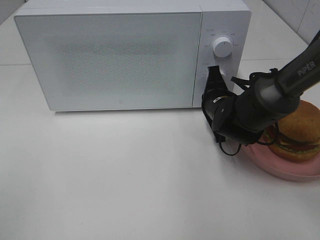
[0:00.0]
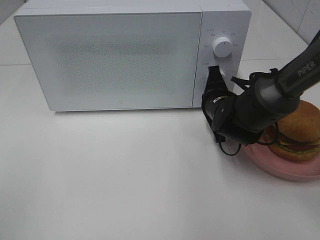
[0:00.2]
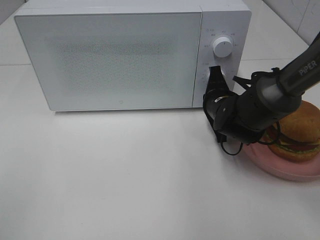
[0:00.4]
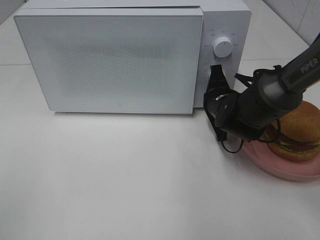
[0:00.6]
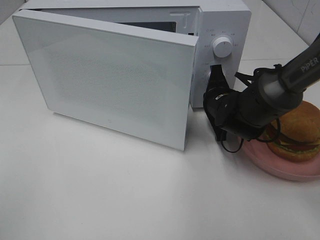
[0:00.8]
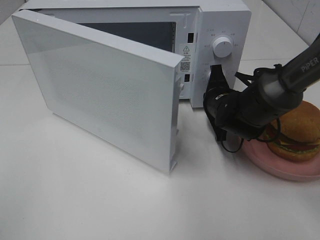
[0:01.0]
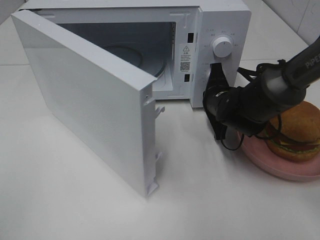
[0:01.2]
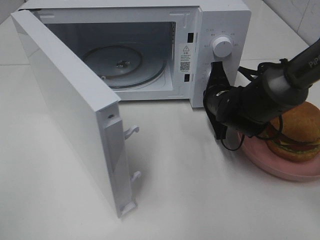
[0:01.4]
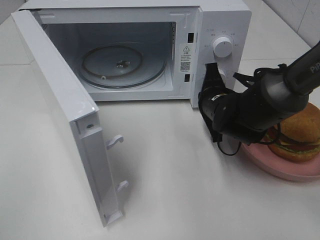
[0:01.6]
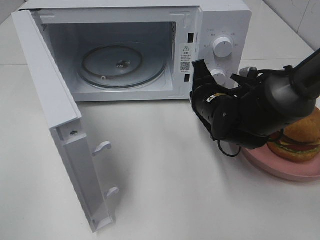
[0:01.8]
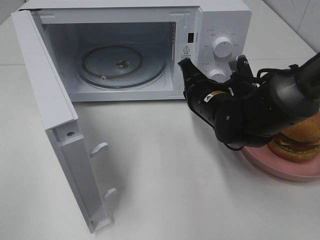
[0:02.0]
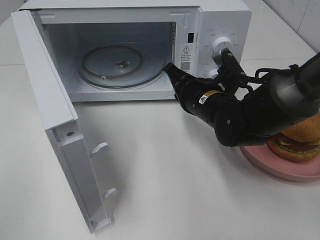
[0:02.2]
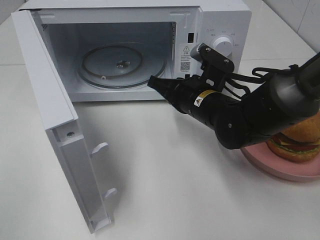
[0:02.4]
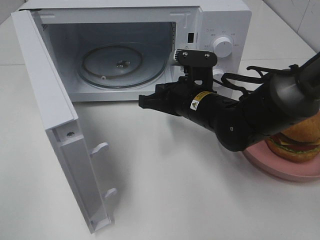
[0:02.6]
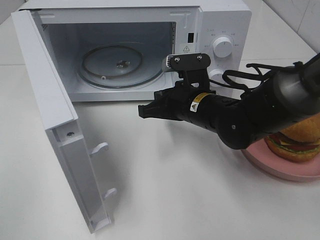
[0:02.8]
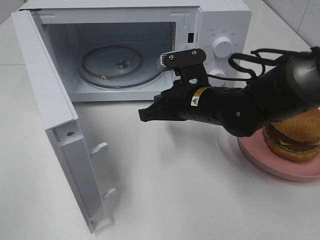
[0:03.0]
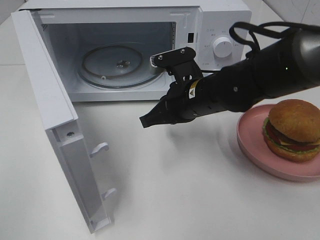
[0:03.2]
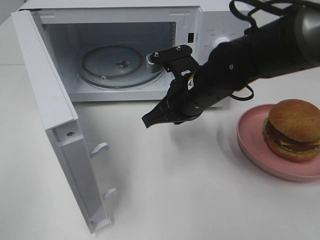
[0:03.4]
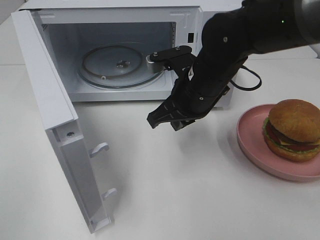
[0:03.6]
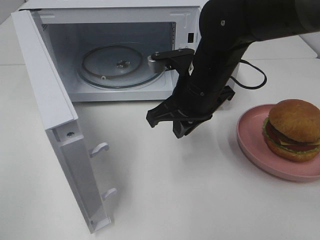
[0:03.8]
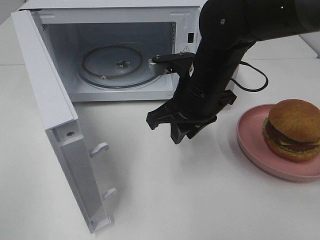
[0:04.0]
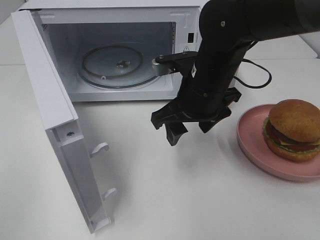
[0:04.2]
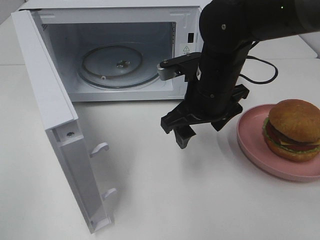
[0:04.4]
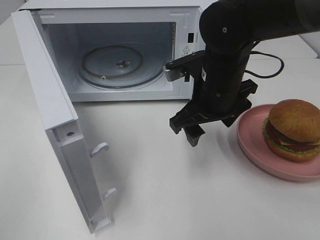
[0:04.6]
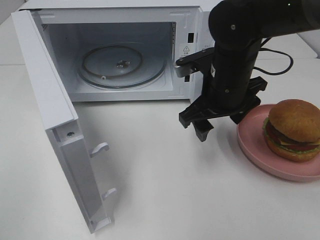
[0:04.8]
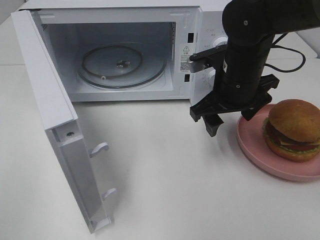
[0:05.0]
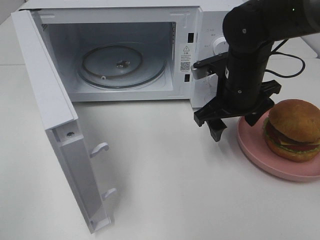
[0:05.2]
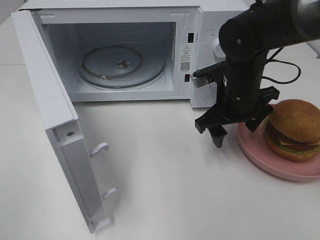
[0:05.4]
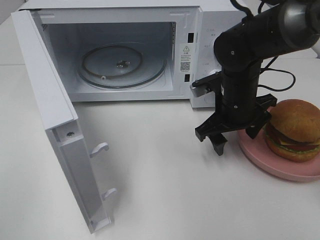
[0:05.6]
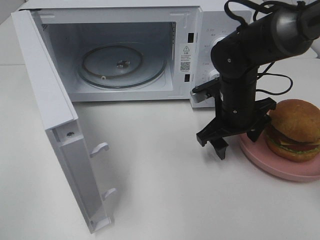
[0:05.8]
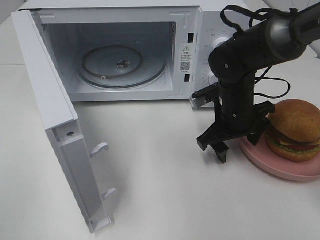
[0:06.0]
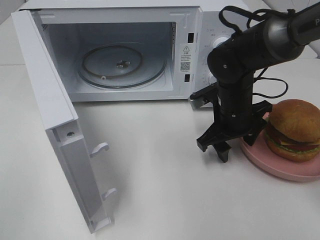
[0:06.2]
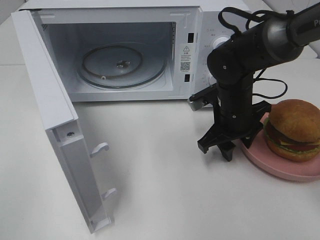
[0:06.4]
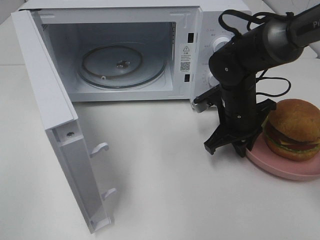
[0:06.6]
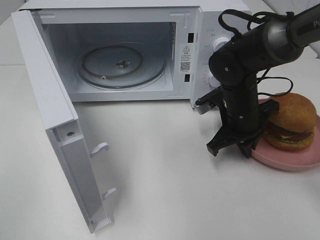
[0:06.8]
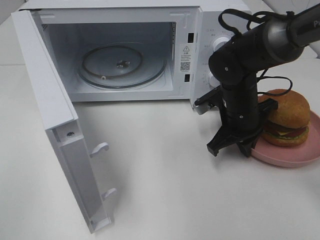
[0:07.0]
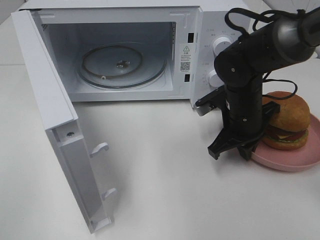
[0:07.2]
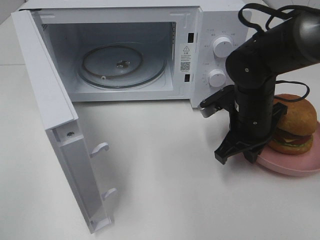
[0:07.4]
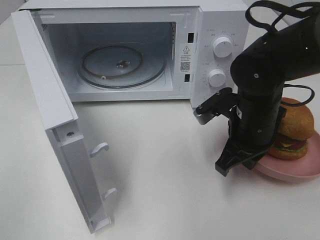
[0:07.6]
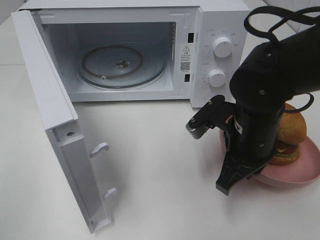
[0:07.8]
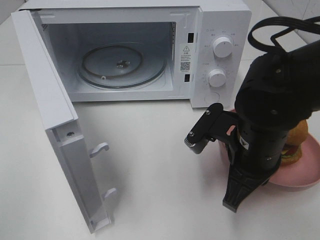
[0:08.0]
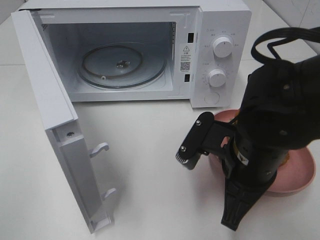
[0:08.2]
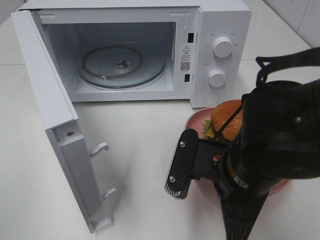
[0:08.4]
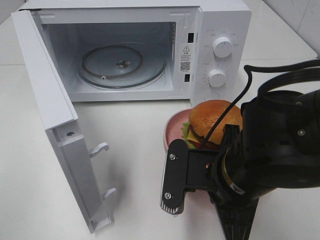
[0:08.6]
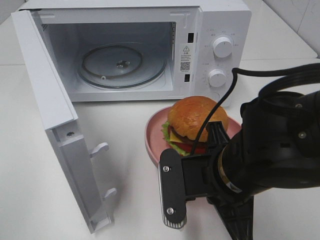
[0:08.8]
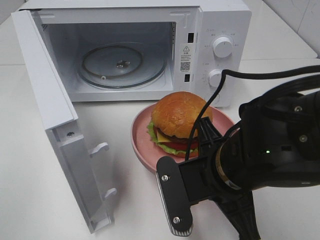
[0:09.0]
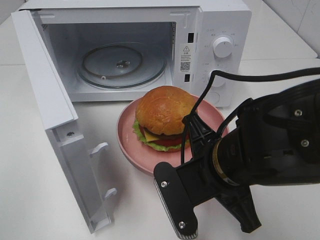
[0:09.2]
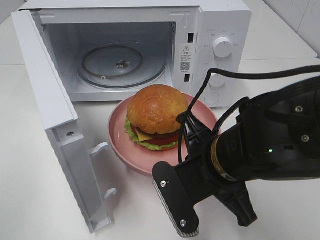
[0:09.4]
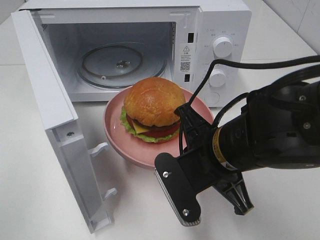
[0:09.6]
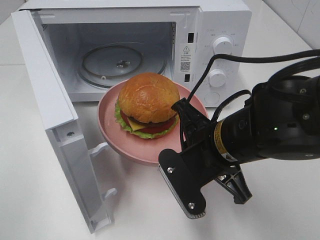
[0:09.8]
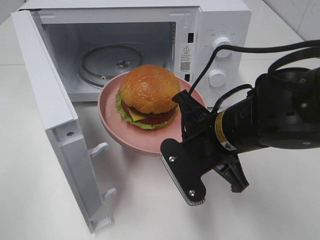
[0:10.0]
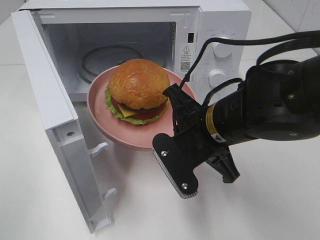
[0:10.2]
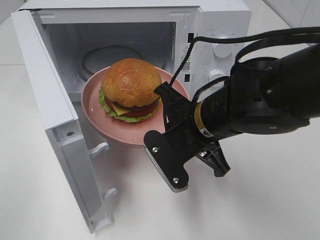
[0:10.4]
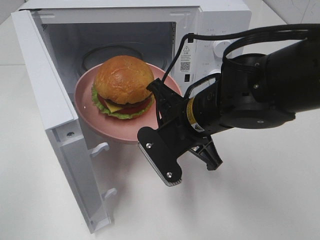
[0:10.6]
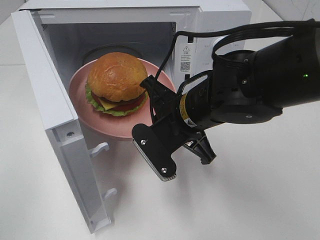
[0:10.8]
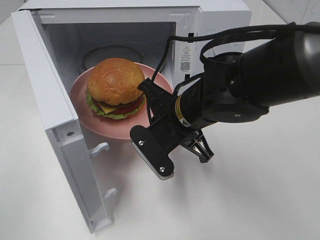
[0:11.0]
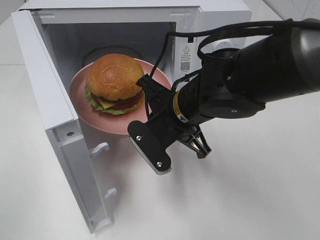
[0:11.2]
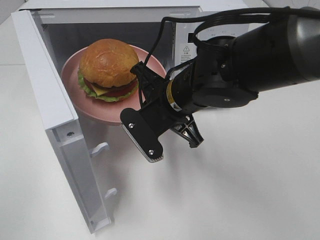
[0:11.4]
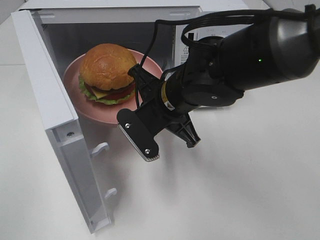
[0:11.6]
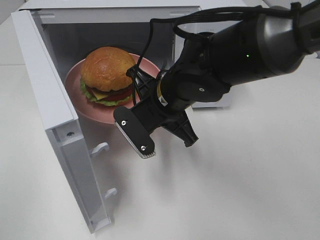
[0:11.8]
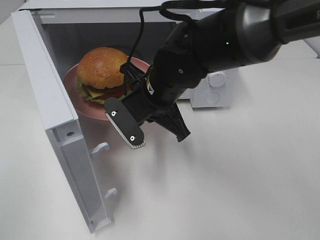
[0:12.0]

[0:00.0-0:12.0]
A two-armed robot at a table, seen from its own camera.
Task of the whole recording: Heat the burger.
Step, 0:01.8 to 0:06.8: Right hand: grab the plate with the hamburger.
0:01.6 to 0:03.0: The right gripper ends up approximately 5 cm from where it was.
0:03.0 to 0:04.4: The right gripper opens.
0:04.4 to 0:06.0: The right gripper heads downward and to the right, covering approximately 10 cm.
0:06.0 to 0:07.6: The right gripper goes about 5 cm backward, and closes.
0:07.6 to 0:09.0: The right gripper goes about 10 cm backward and to the left.
0:09.0 to 0:10.4: The right gripper moves forward, roughly 5 cm.
0:10.4 to 0:12.0: The right gripper goes roughly 10 cm forward and to the left.

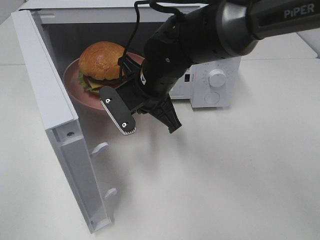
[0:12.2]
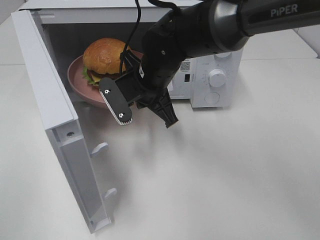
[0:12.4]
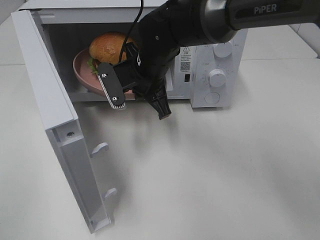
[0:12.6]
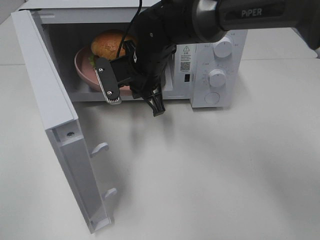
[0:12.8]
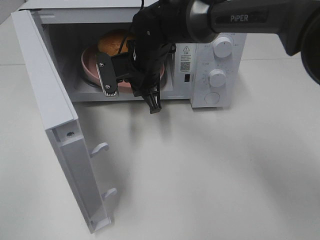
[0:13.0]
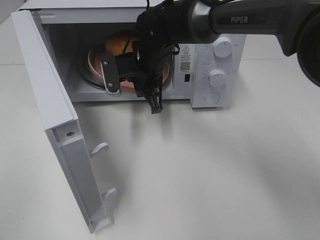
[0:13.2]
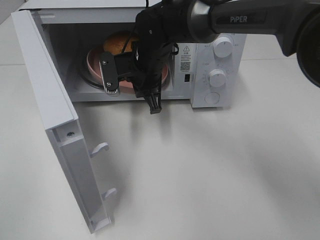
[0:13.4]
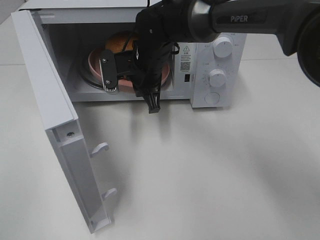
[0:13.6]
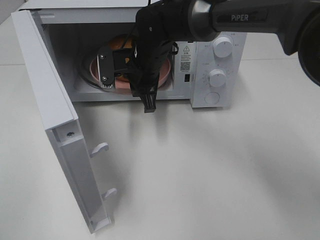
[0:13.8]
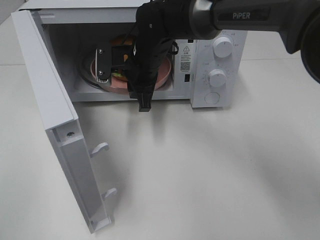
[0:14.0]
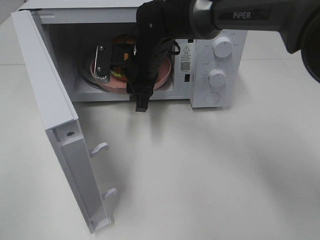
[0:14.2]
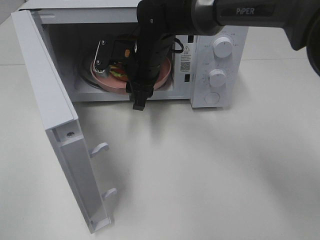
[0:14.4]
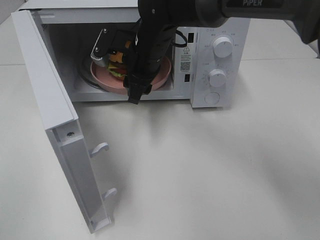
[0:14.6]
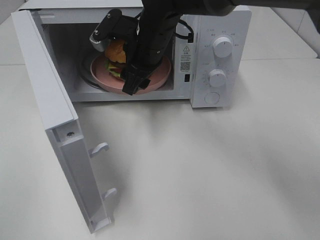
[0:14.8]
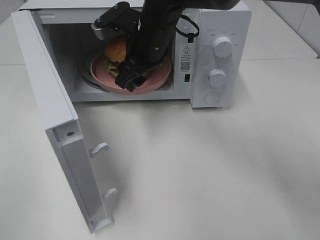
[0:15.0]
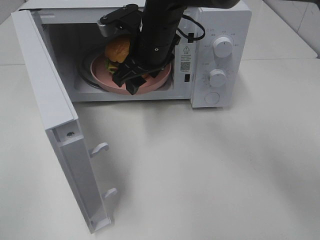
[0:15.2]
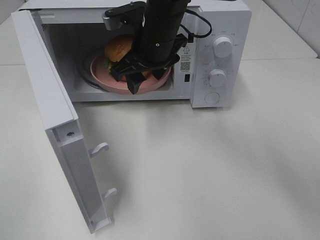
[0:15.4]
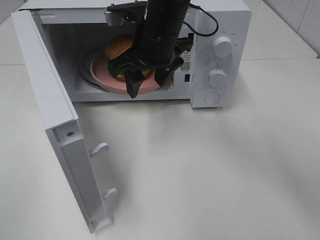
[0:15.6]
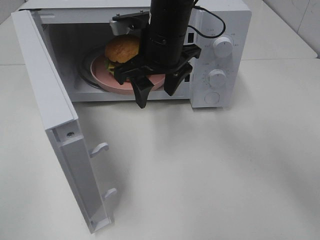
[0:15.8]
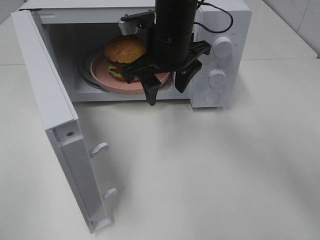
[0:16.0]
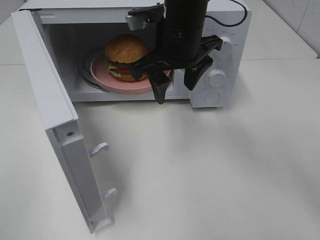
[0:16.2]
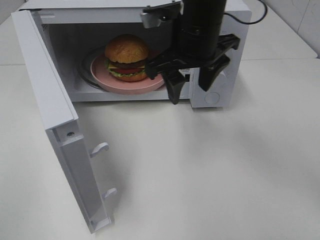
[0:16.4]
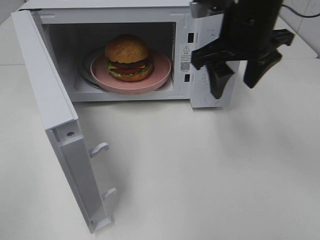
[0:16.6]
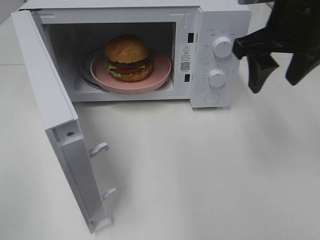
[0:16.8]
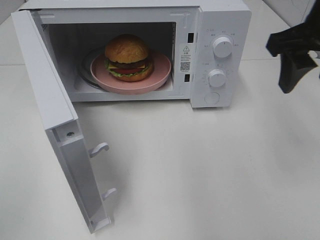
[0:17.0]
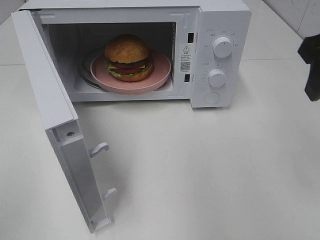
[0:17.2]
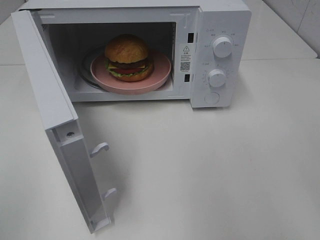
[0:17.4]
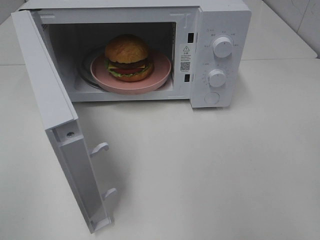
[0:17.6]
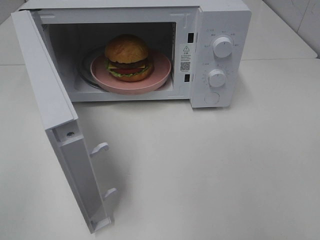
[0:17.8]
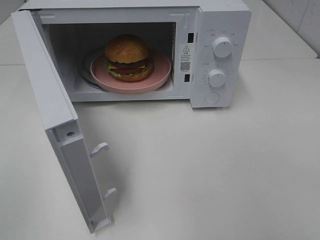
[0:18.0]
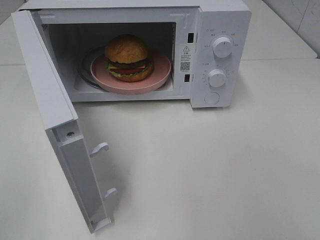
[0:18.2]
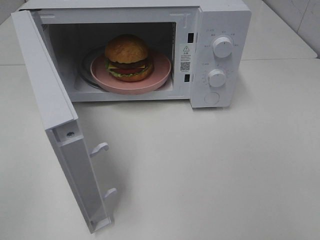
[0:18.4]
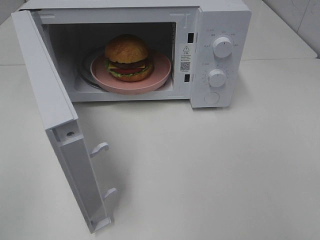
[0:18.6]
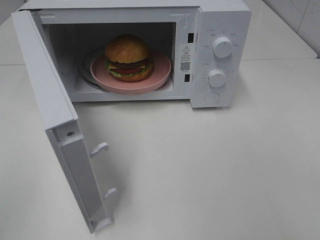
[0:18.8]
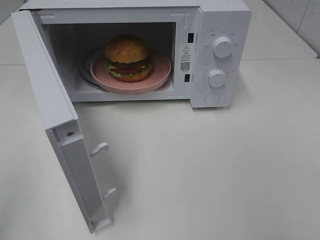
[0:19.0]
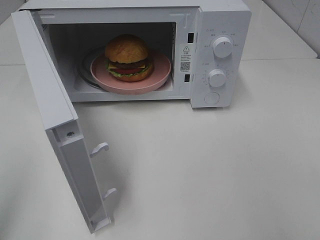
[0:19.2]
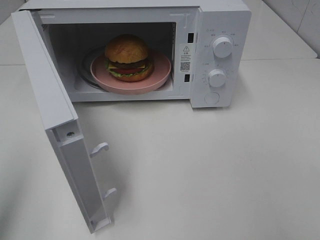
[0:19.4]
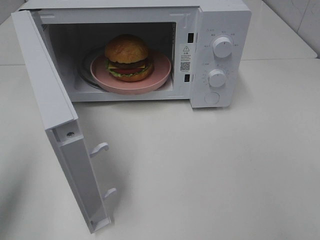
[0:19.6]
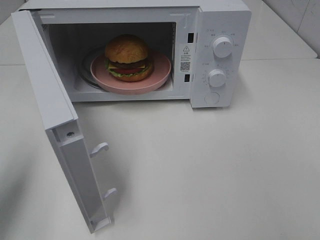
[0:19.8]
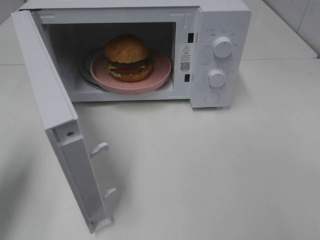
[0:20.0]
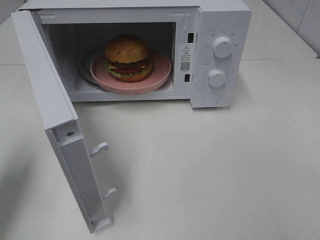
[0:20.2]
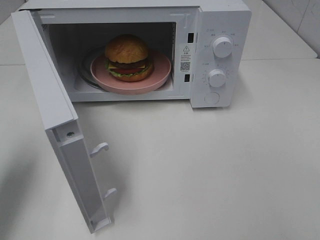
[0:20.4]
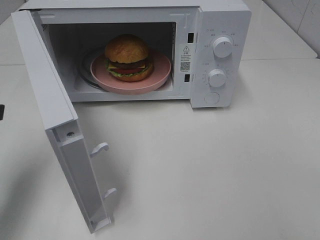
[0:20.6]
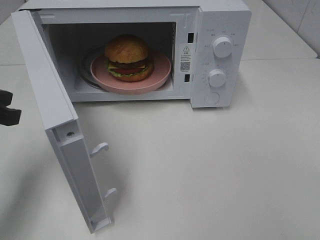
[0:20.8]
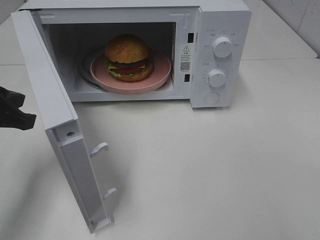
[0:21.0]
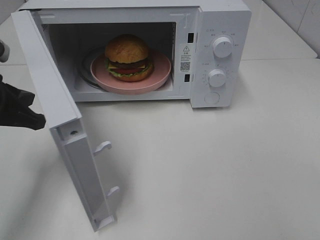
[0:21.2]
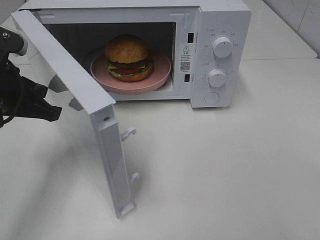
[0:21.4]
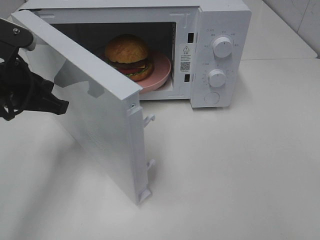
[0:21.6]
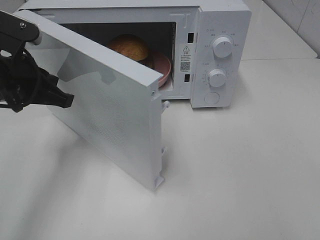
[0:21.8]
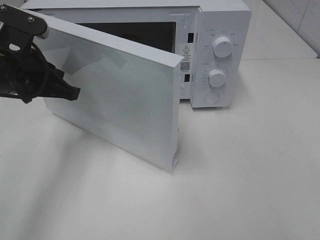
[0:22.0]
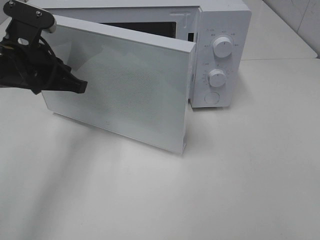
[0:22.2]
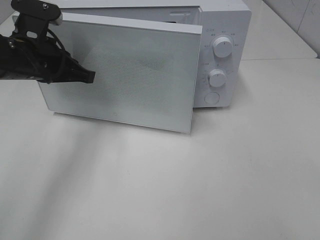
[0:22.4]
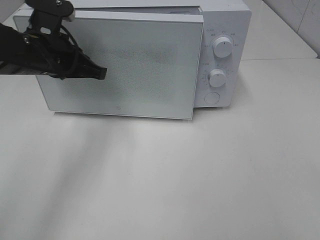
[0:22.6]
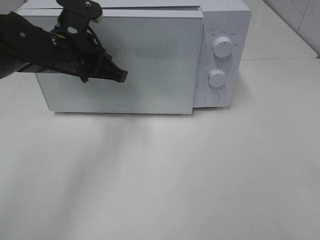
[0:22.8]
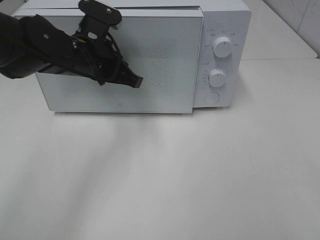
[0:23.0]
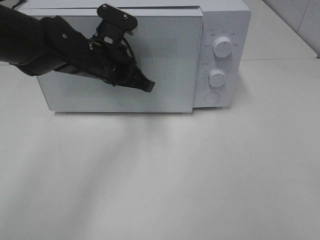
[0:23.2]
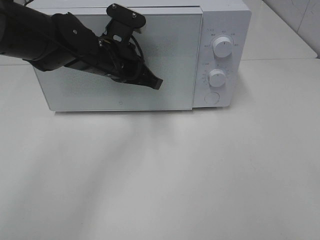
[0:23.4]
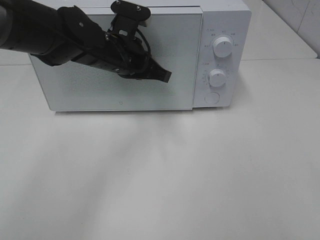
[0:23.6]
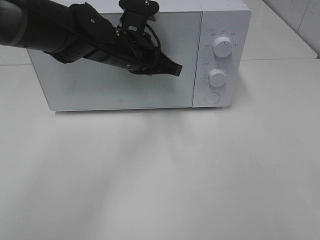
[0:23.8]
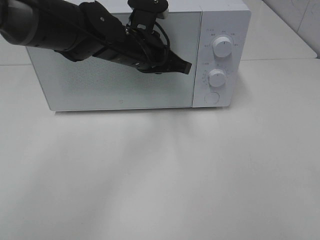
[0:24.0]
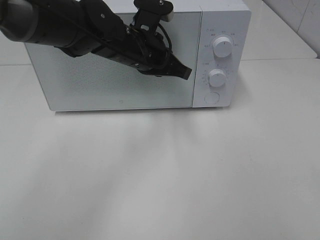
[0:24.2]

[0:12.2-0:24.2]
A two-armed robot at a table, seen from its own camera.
Task of the whole recording: Heat the burger.
Step, 0:14.2 to 0:24.0: Left hand: close the microwave door.
0:12.2 to 0:13.8: The right gripper is displaced forward by approximately 10 cm.
0:13.8 to 0:15.2: The right gripper is displaced upward by approximately 5 cm, and opens up.
0:15.2 to 0:16.6: The right gripper shifts about 15 cm to the right, upward and backward.
0:16.6 to 0:18.2: The right gripper goes some 35 cm backward and to the right.
0:18.2 to 0:19.8: The left gripper is displaced forward by approximately 15 cm.
0:19.8 to 0:21.2: The left gripper moves downward, forward and to the right, approximately 15 cm.
0:21.2 to 0:22.6: The left gripper heads forward and to the right, covering about 10 cm.
0:22.6 to 0:24.2: The left gripper shifts approximately 15 cm to the right.
